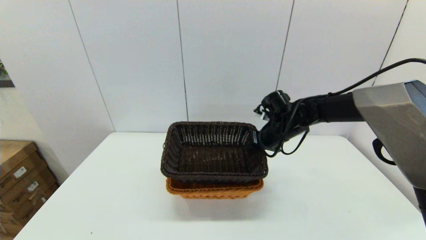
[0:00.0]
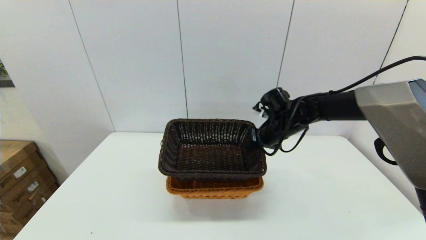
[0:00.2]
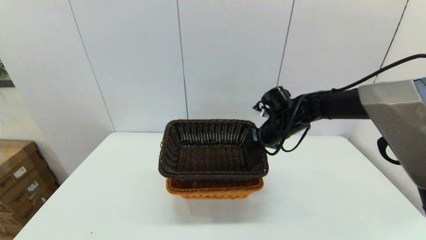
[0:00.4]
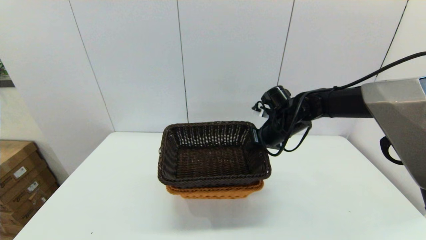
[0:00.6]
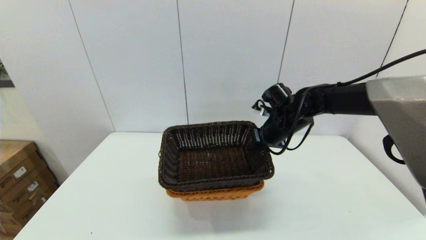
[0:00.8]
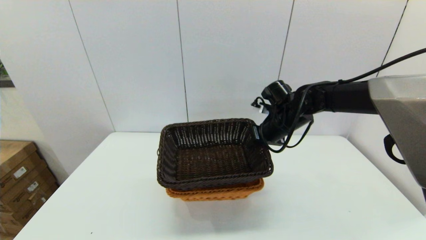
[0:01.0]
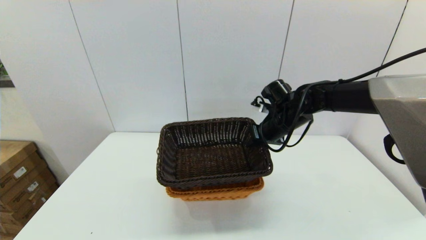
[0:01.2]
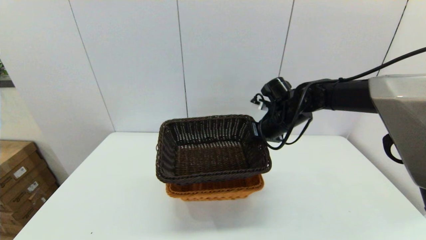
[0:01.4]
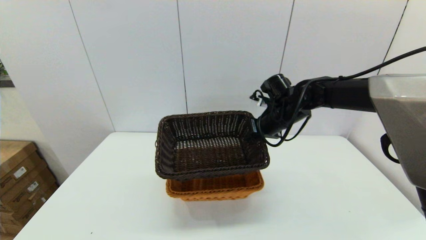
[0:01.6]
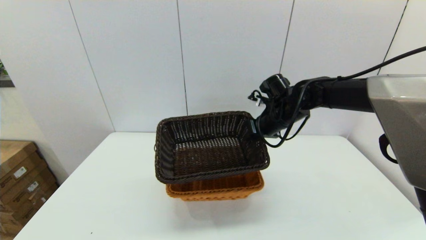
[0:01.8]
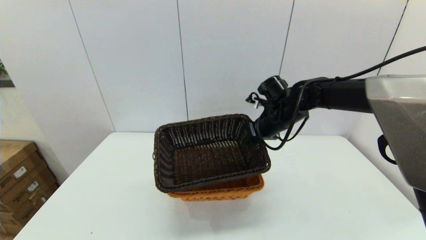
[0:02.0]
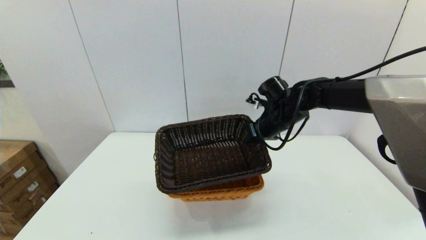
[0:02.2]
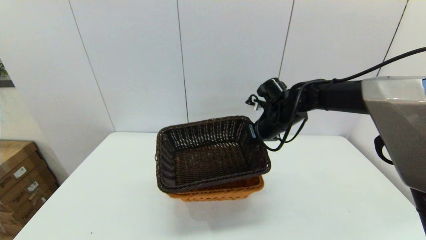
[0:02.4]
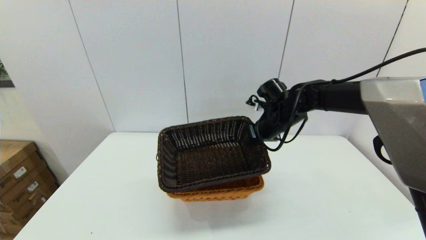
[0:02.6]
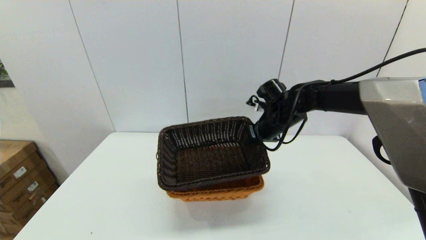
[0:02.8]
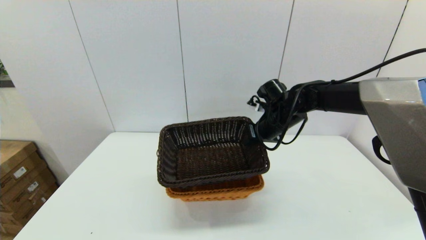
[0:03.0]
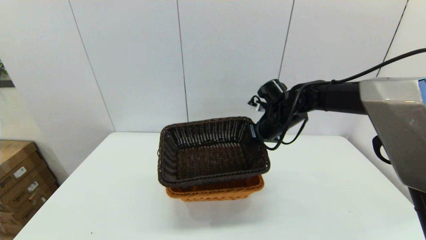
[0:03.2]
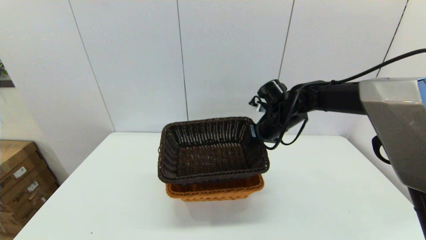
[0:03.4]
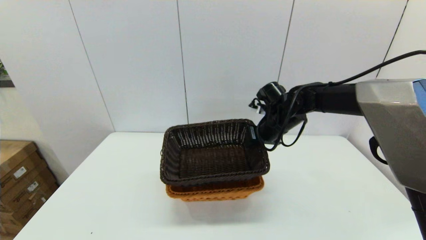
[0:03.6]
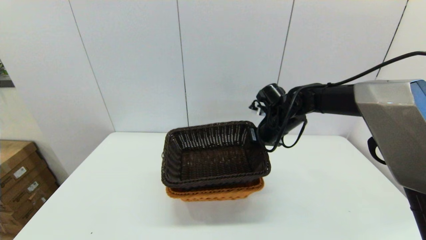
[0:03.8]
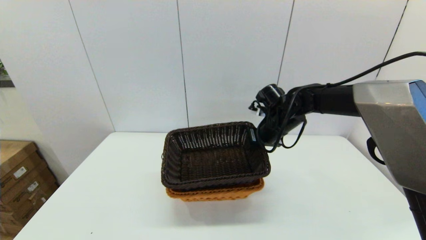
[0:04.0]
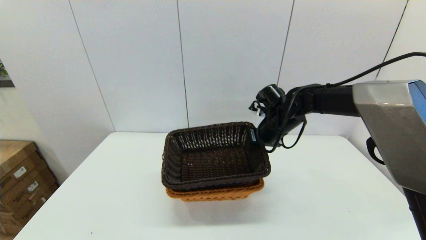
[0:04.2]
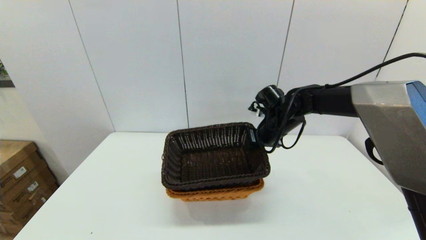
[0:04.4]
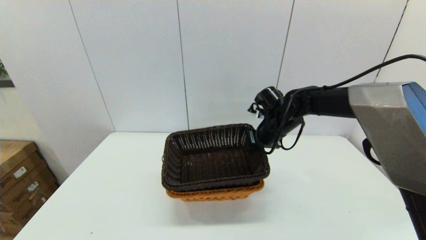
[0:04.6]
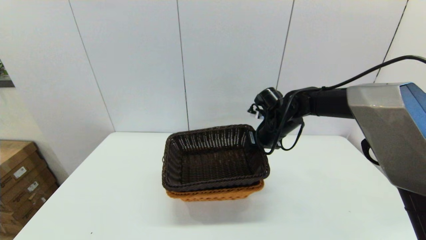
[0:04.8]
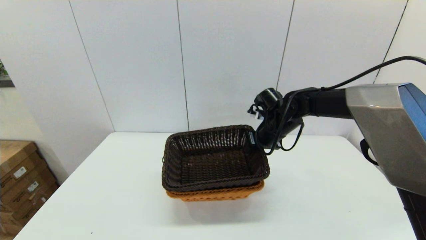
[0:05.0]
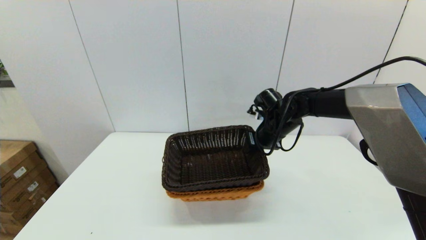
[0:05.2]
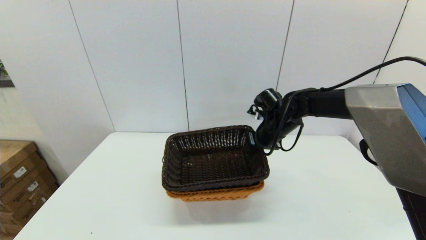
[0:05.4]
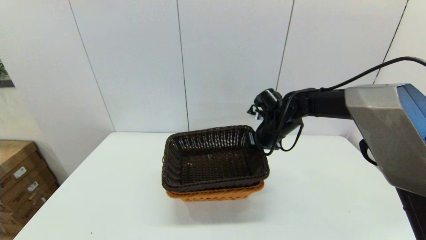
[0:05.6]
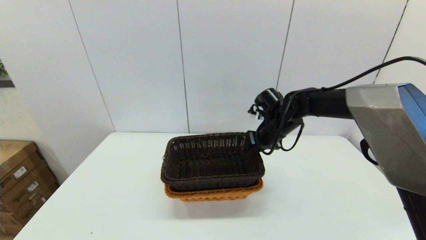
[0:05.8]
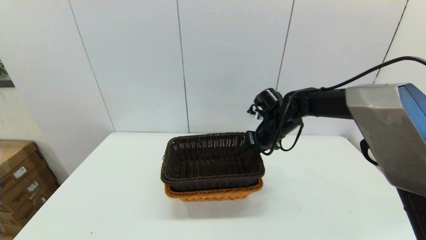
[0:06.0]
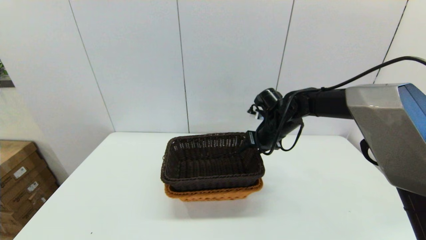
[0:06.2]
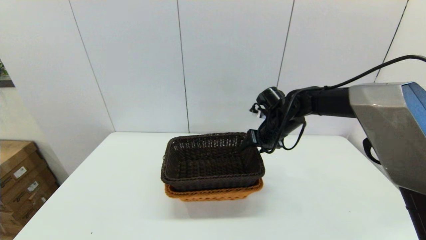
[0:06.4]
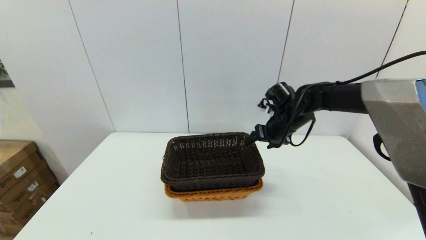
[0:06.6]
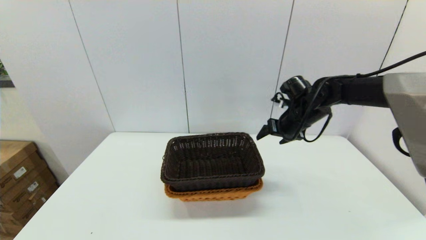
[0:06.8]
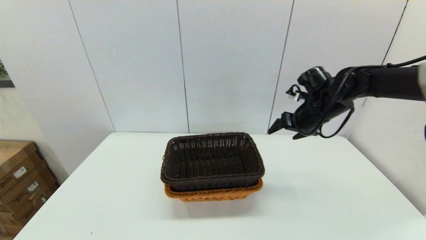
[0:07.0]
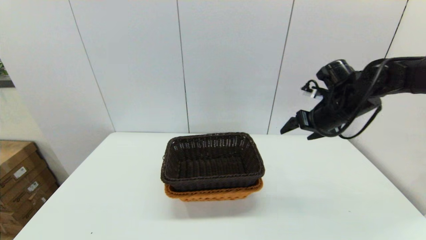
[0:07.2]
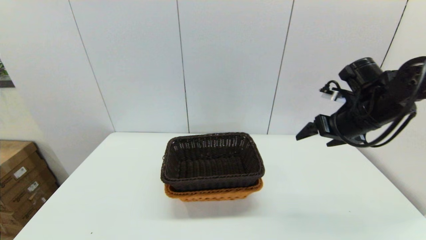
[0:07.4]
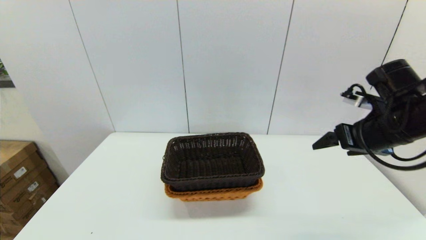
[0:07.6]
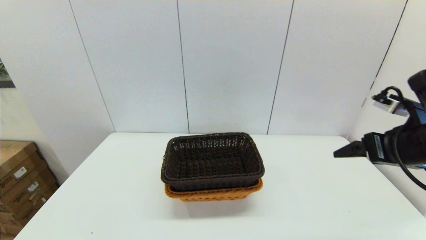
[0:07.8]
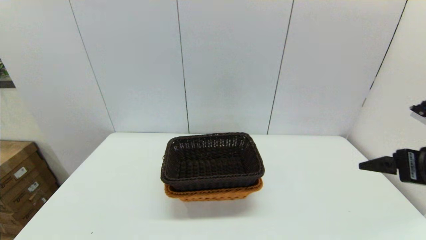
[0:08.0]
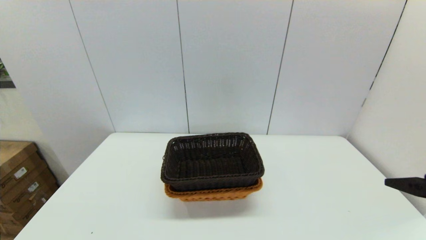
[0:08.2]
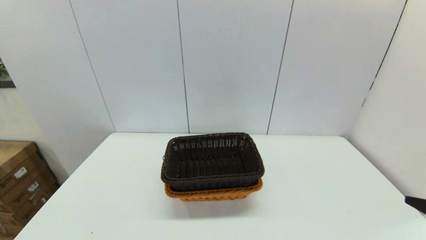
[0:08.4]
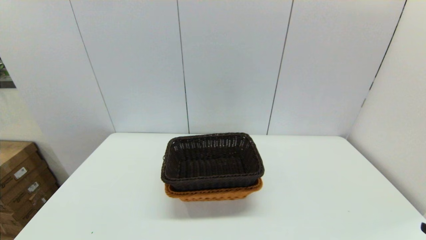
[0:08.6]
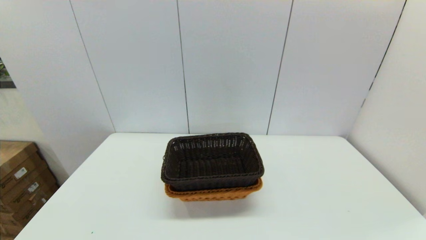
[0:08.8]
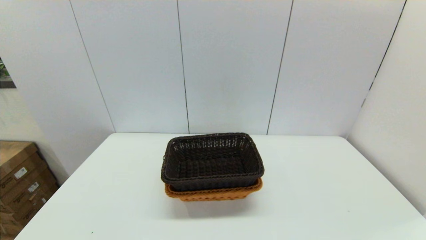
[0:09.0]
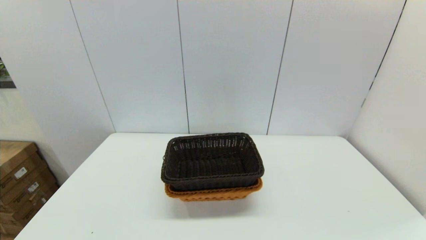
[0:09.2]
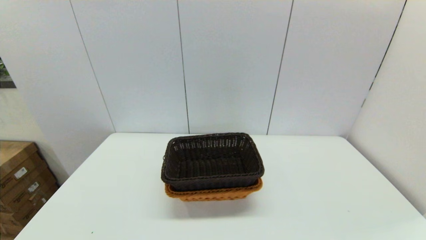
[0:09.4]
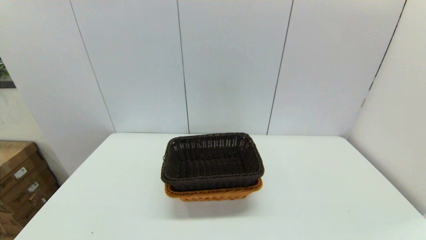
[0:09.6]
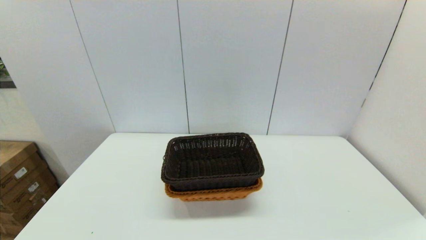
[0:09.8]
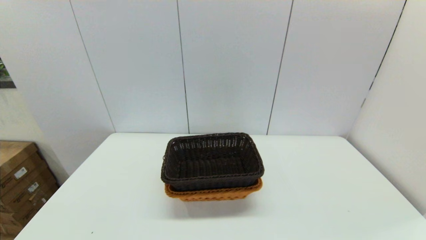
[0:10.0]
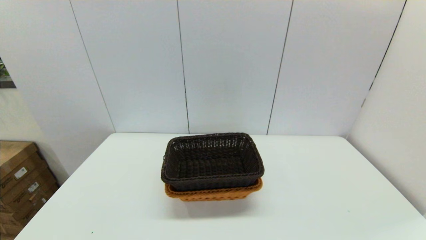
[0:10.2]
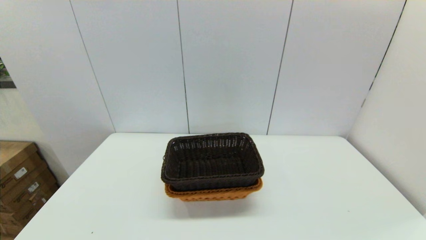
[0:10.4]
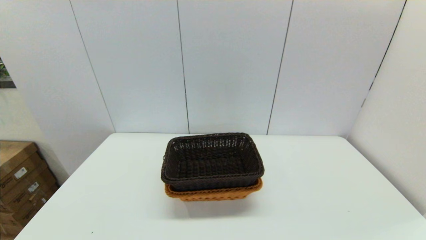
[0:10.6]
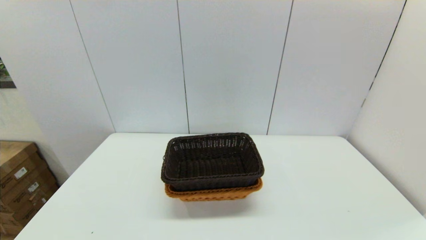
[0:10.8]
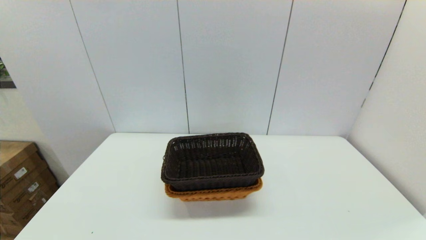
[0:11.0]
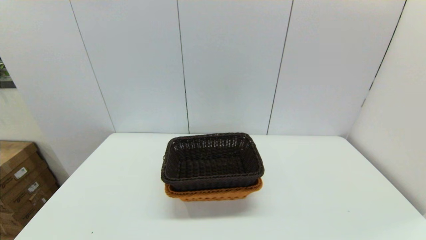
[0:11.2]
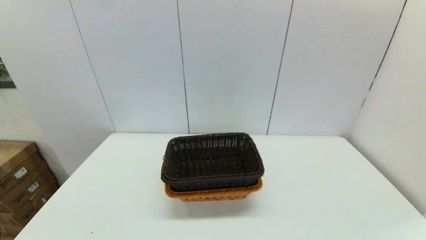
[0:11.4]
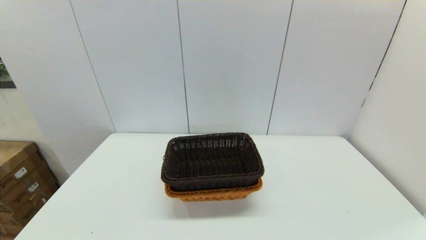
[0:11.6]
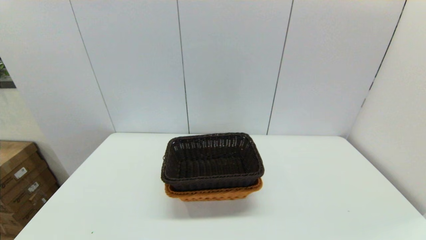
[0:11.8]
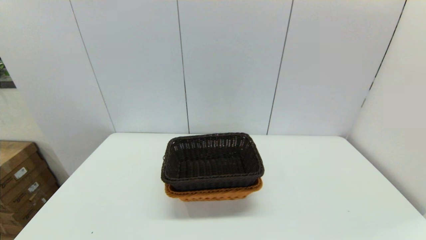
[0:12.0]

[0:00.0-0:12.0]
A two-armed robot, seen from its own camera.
Task of the whole recording: stack a basket on top of another basket.
Step, 0:00.0 to 0:06.6: Place the dark basket into the light color basket with the right gripper.
0:00.0 to 0:01.6: The grippers stay close to where they were, moving slightly.
0:01.6 to 0:03.0: Both grippers stay put.
0:03.0 to 0:04.4: There are only small adjustments of the grippers.
0:04.4 to 0:06.0: The right gripper opens.
0:06.0 to 0:07.6: The right gripper is displaced backward, to the right and upward by about 20 cm, and opens.
0:07.6 to 0:09.0: The right gripper is displaced backward by some 25 cm.
0:10.4 to 0:12.0: The two grippers keep their place.

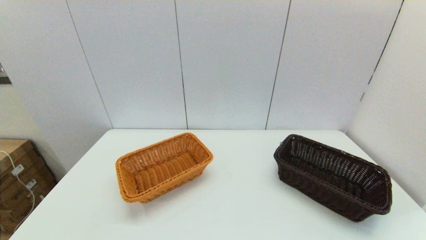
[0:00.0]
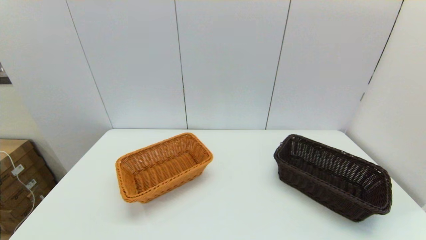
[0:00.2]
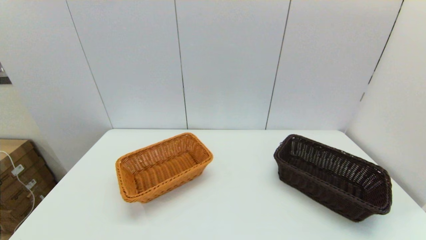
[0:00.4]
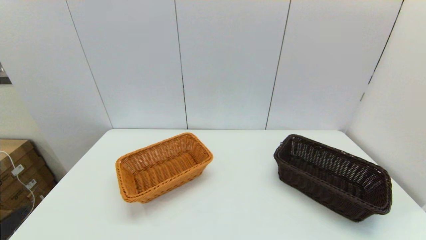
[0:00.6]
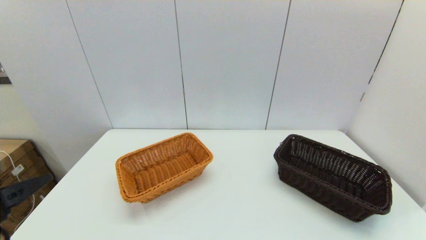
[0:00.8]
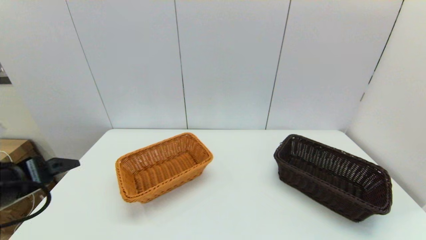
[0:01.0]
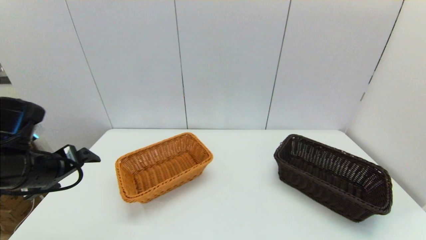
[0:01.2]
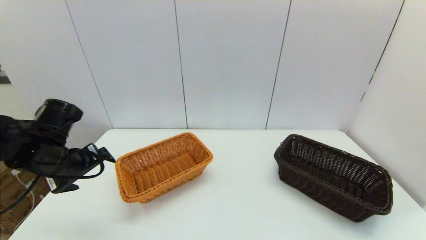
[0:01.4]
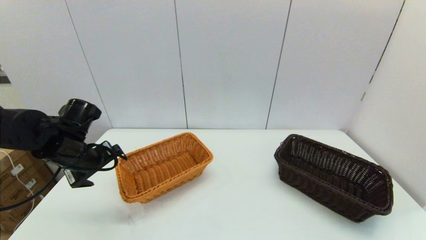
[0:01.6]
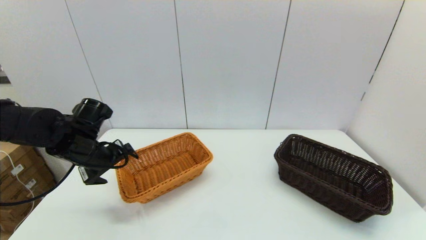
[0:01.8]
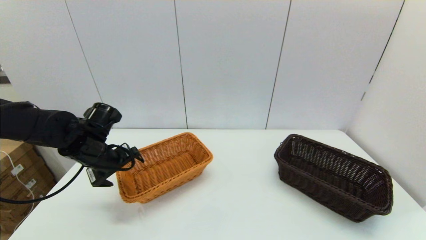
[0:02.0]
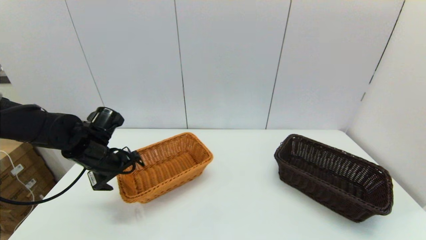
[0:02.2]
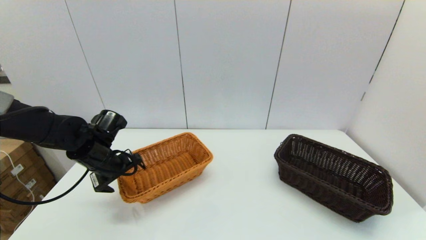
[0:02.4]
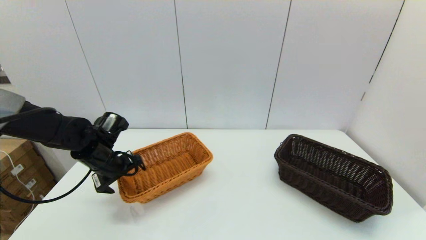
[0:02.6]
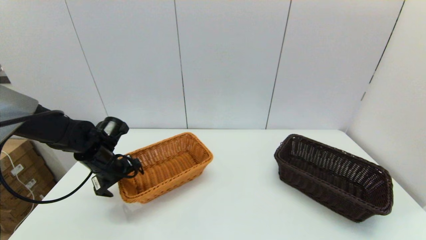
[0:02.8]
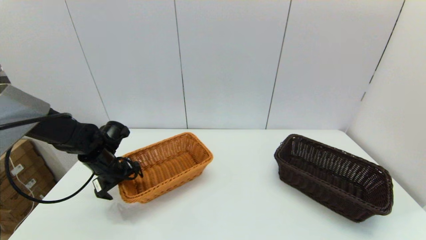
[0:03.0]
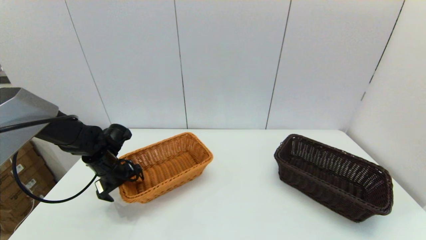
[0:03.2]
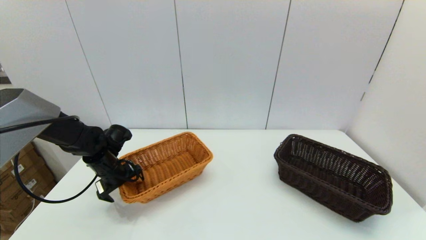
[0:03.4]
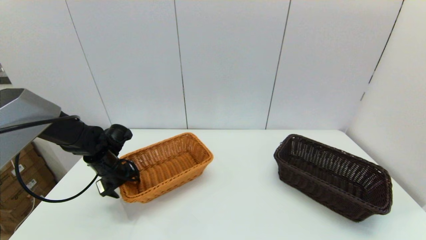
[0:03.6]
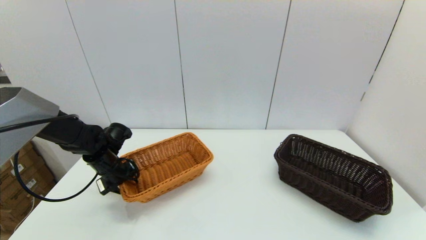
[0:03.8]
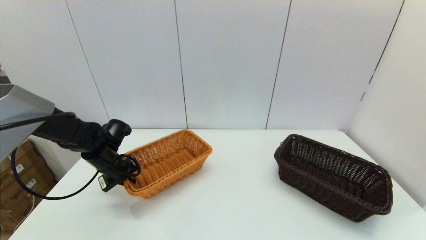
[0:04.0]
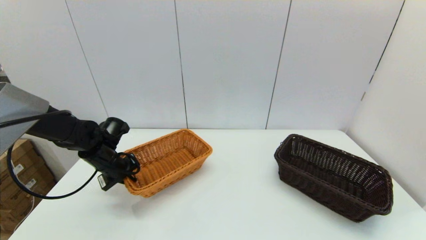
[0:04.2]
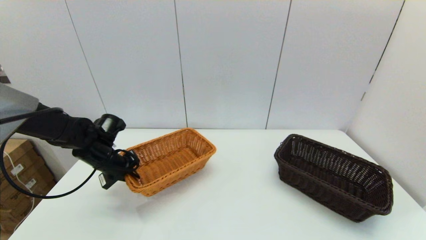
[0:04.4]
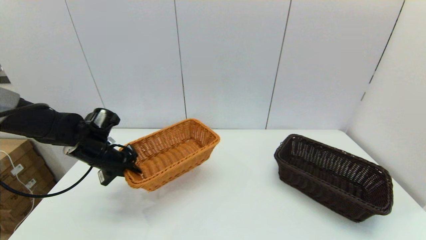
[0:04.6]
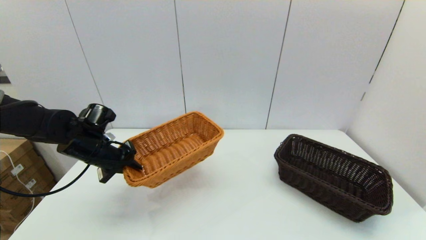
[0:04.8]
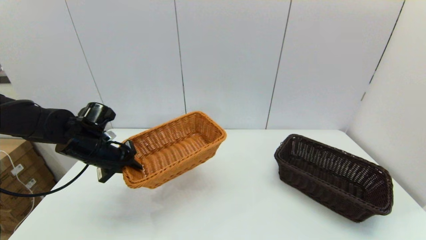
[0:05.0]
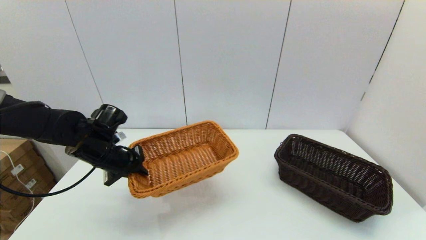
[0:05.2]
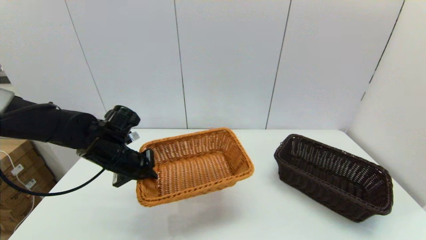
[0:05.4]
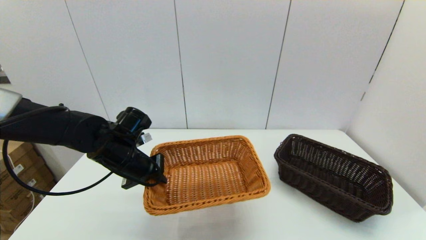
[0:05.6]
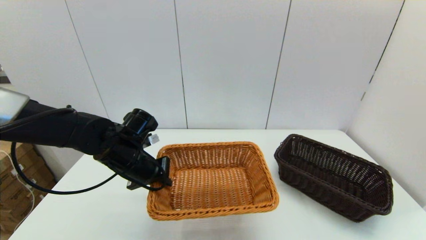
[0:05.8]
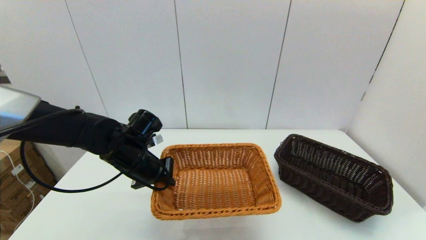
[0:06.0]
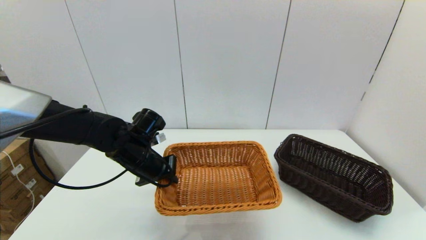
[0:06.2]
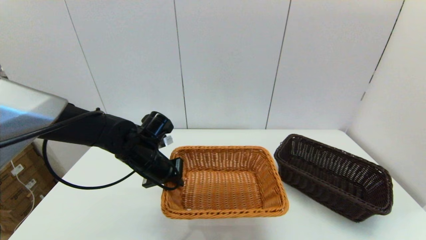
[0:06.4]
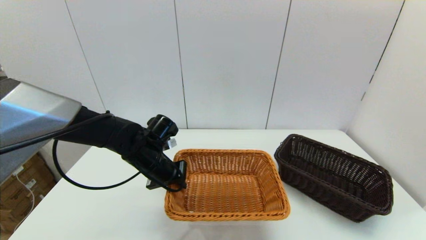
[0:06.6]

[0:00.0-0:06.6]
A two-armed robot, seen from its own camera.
Task of the whole recording: stack a basket on top of another basket.
0:00.0 to 0:01.6: The left gripper is displaced forward by some 30 cm.
0:01.6 to 0:03.2: The left gripper travels downward and forward by some 10 cm.
0:03.2 to 0:05.0: The left gripper moves upward, some 10 cm, and closes up.
0:05.0 to 0:06.6: The left gripper is displaced to the right by approximately 15 cm.
